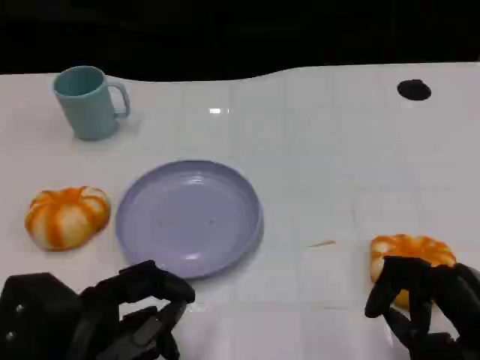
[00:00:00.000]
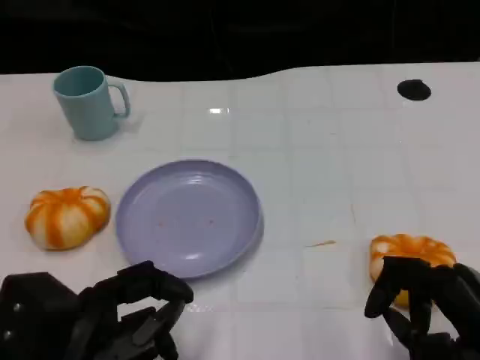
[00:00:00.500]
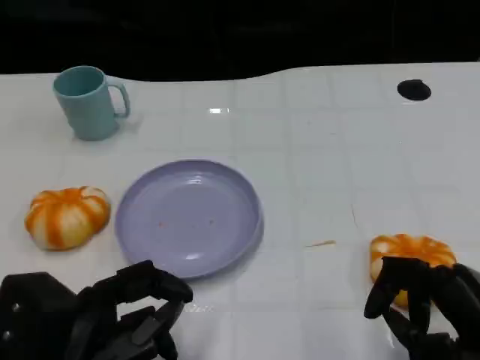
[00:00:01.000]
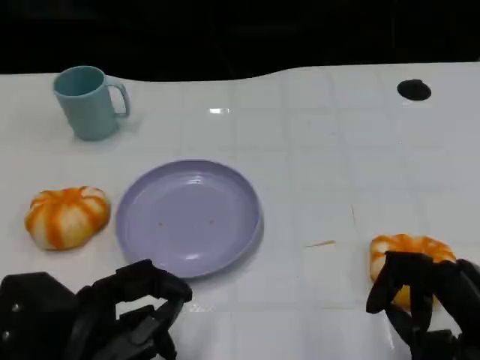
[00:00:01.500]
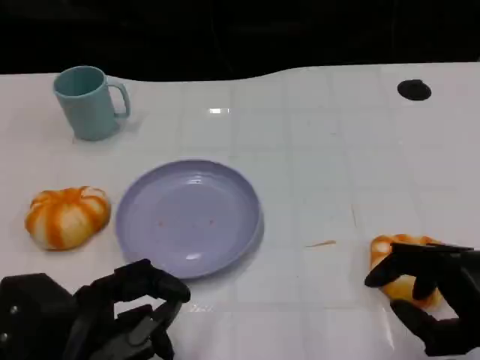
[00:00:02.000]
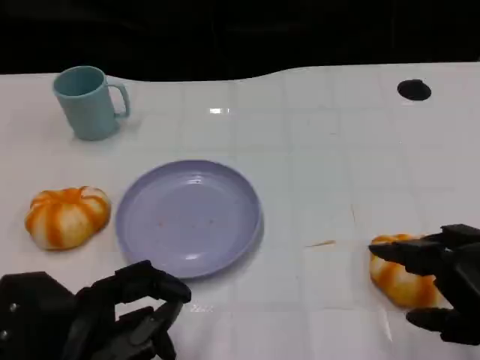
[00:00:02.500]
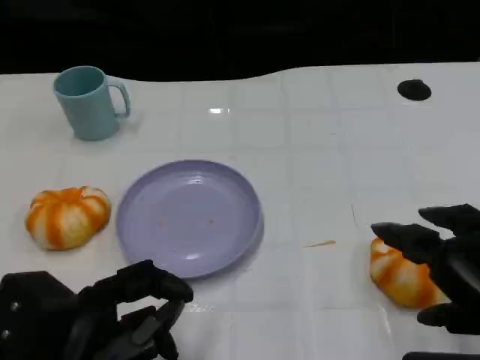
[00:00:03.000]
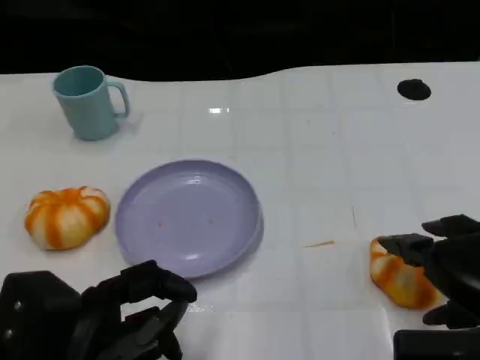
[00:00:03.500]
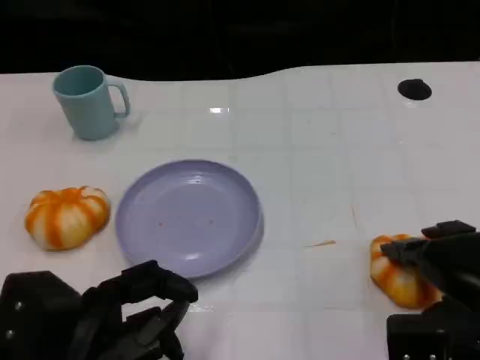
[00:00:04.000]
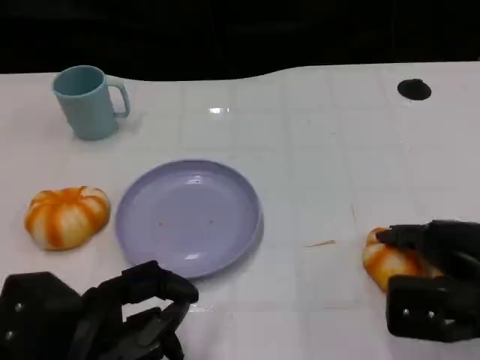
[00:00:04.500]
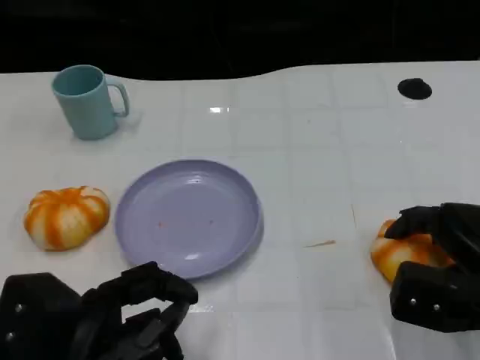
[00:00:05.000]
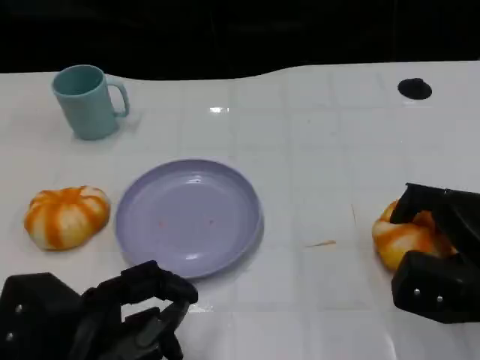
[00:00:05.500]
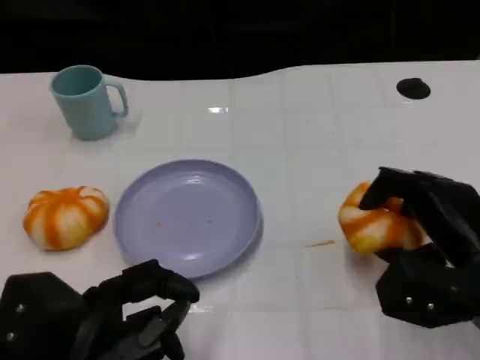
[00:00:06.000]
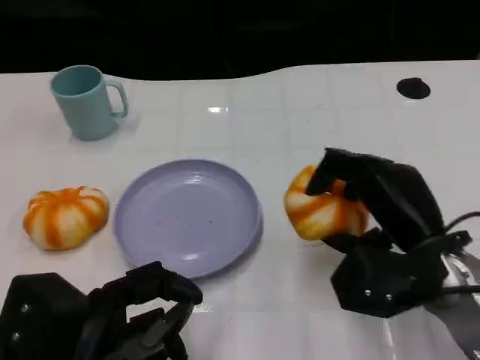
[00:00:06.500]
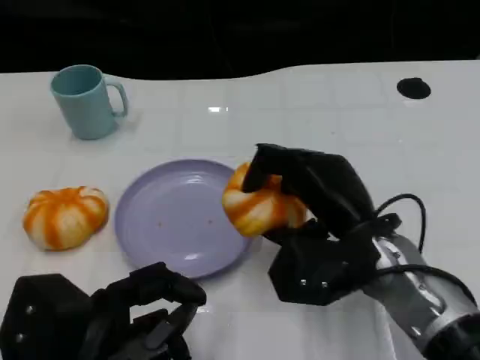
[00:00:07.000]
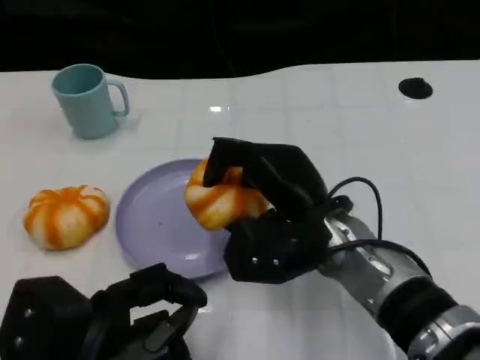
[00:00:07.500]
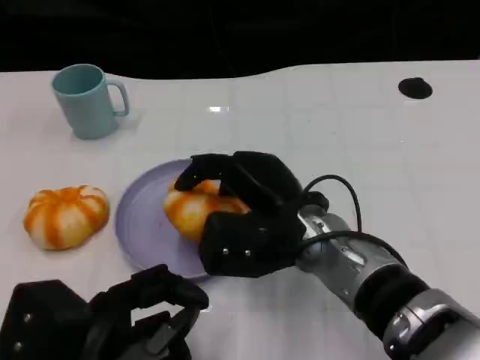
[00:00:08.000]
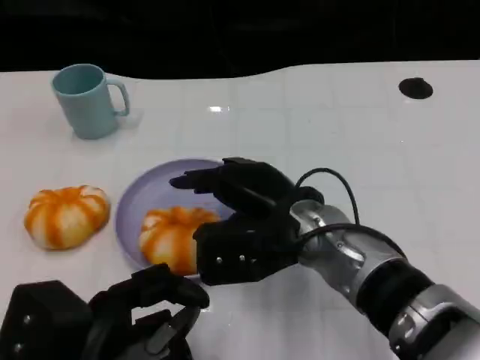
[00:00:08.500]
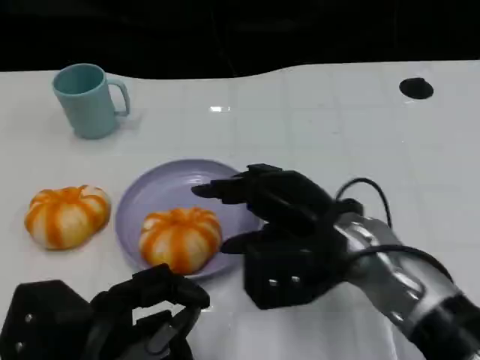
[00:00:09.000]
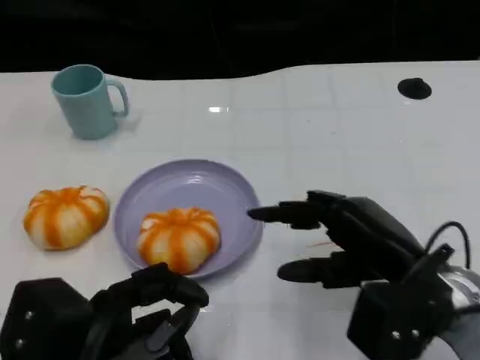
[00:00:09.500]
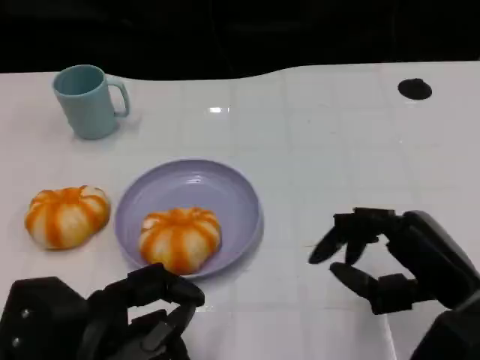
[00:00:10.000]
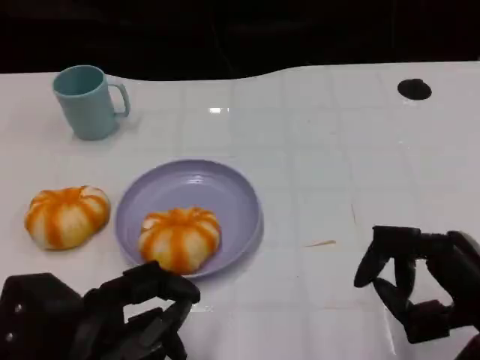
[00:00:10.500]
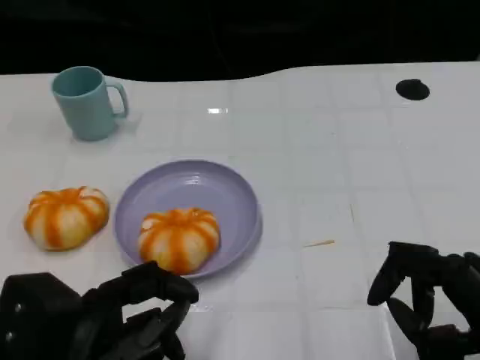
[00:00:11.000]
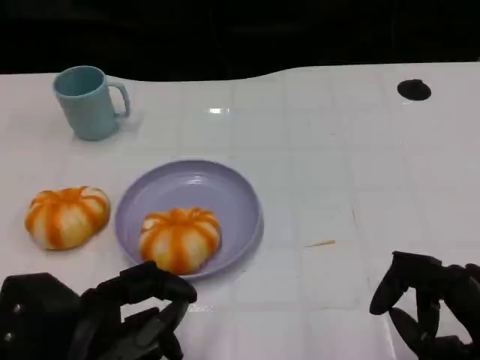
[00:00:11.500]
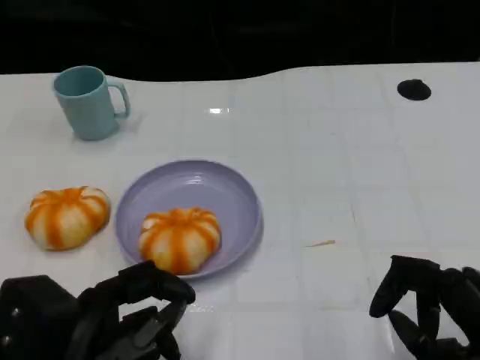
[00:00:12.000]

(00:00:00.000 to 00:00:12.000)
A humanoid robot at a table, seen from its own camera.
Task of the whole recording: Grasp the bread from the table and place it into the plate.
00:00:02.000 - 00:00:04.000: The right hand heads forward, covering roughly 5 cm.
00:00:06.000 - 00:00:08.000: The right hand shifts roughly 15 cm to the left.
00:00:08.000 - 00:00:10.000: The right hand goes approximately 20 cm to the right and backward.
00:00:10.000 - 00:00:12.000: The right hand goes roughly 5 cm backward.

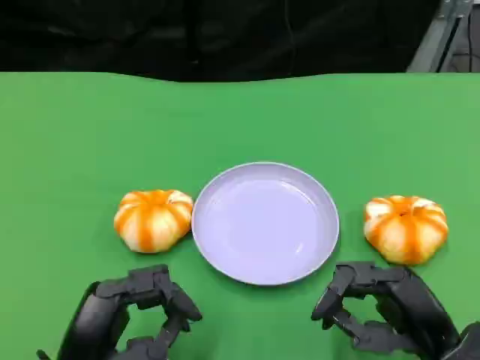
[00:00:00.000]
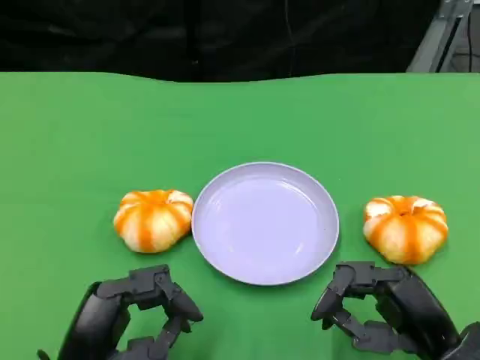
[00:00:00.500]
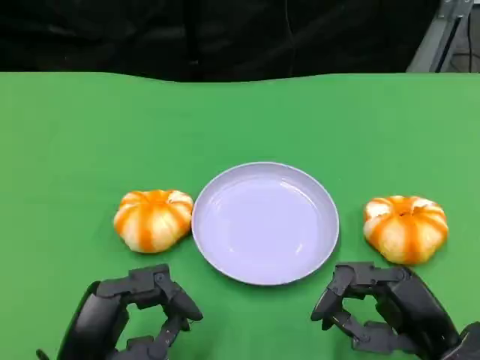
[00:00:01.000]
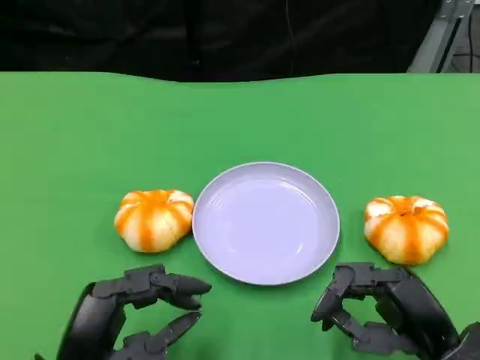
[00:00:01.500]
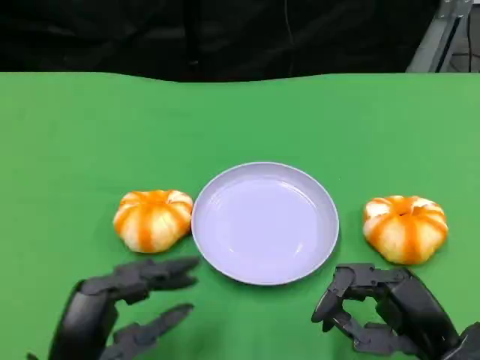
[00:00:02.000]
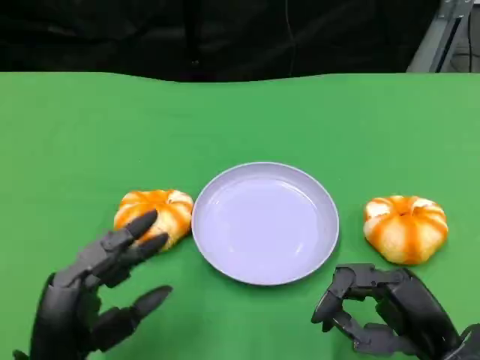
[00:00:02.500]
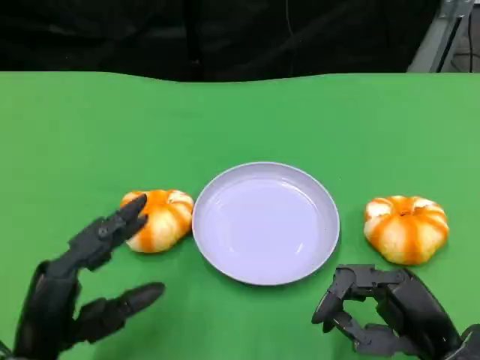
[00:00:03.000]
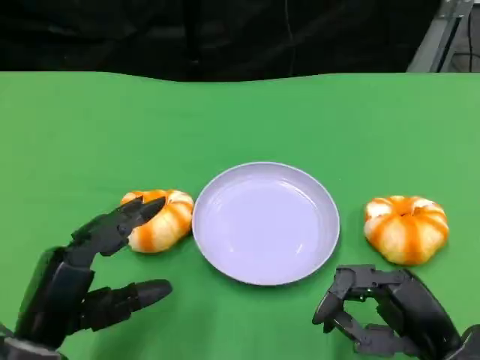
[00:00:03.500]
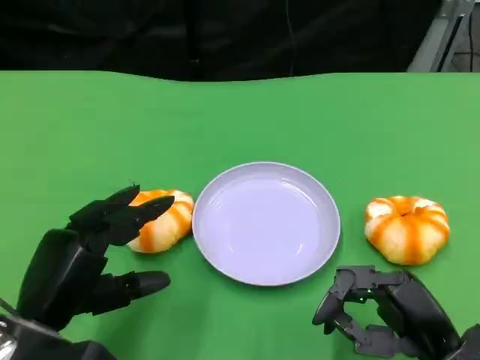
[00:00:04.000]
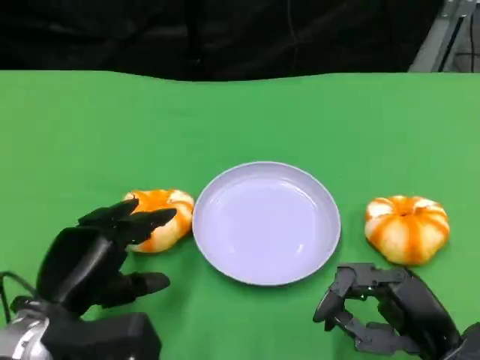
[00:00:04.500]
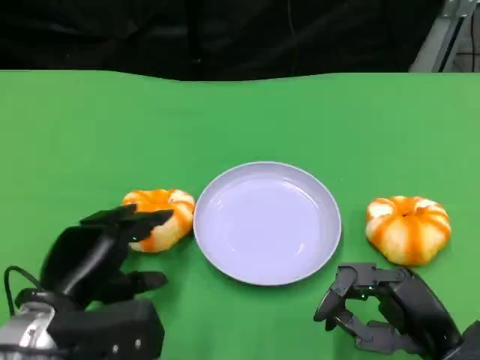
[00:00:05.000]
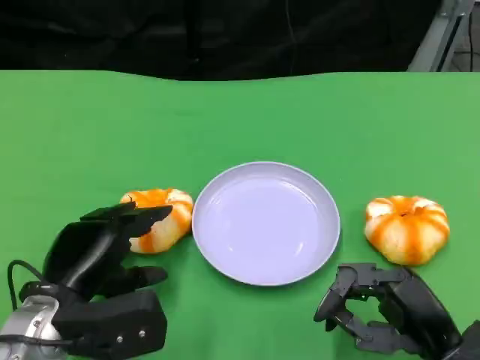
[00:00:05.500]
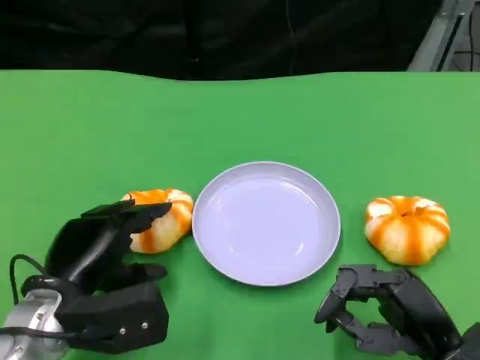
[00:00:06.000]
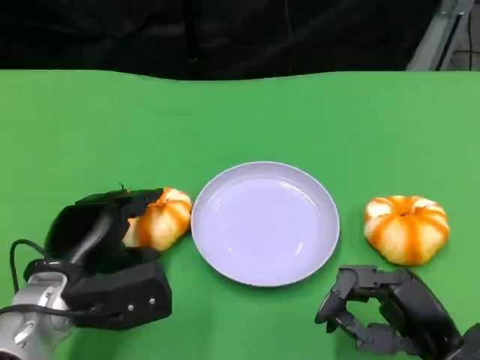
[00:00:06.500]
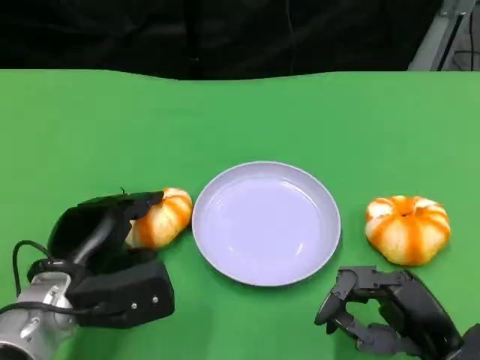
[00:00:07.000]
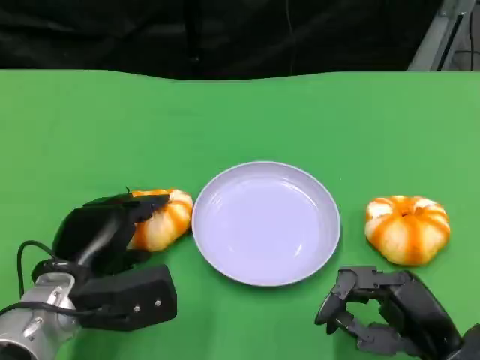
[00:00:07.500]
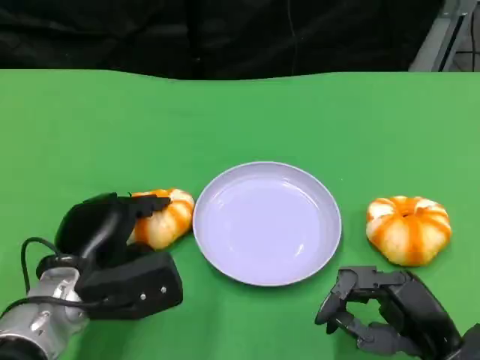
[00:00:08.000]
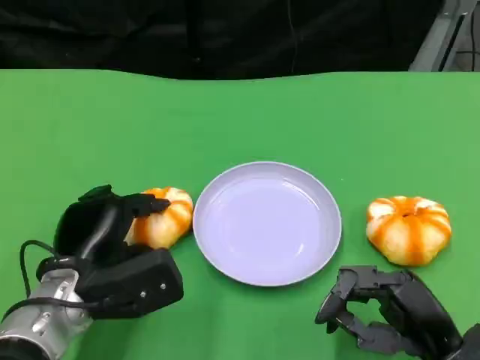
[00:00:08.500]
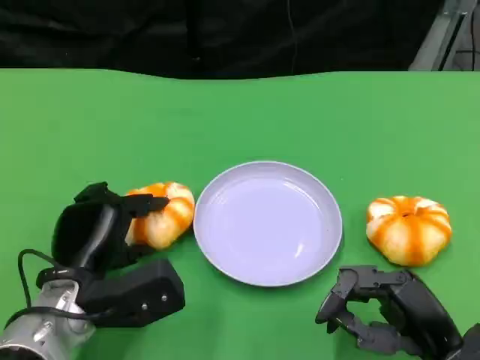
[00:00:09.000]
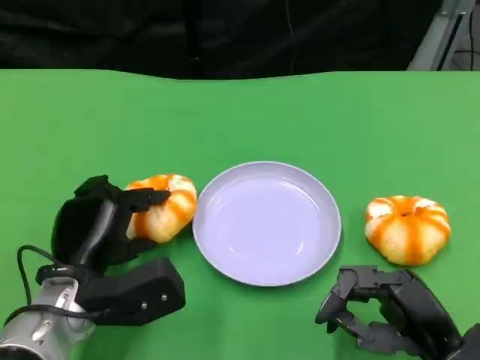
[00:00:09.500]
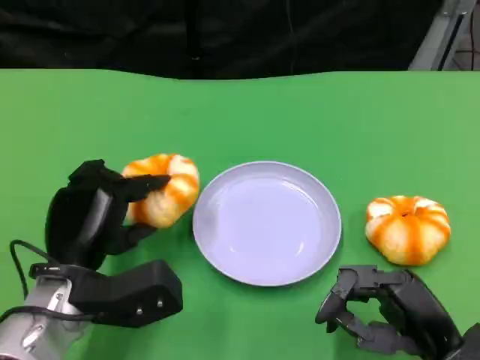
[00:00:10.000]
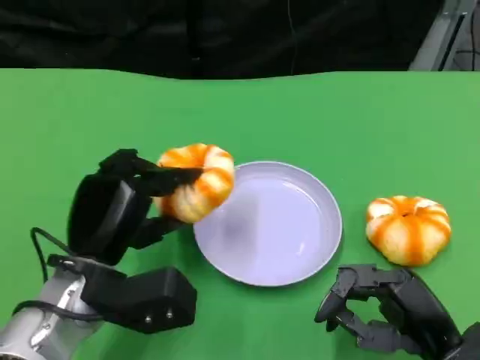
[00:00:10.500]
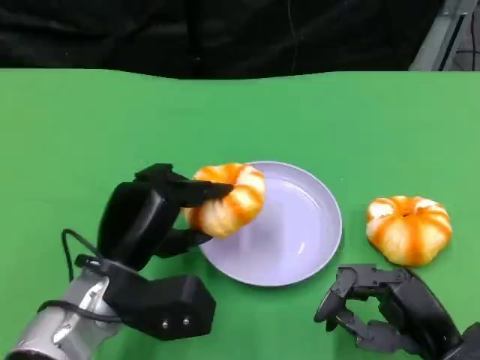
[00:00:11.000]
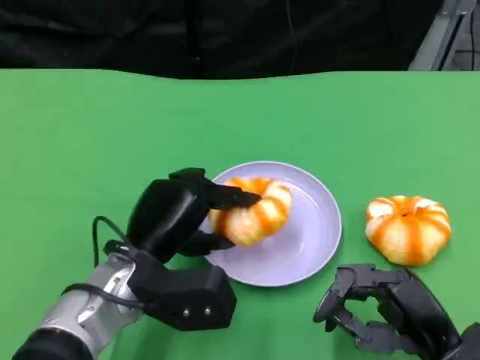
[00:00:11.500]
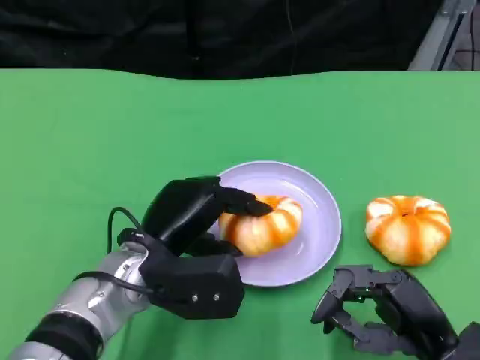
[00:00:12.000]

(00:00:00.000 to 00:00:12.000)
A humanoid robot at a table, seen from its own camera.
Task of the whole recording: Grasp the bread from the table and place it into the plate.
00:00:00.000 - 00:00:02.000: The hands stay close to where they were, moving slightly.
00:00:02.000 - 00:00:04.000: The left hand shifts by roughly 5 cm.
00:00:06.000 - 00:00:08.000: The hands move only a little.
00:00:10.000 - 00:00:12.000: The left hand goes approximately 5 cm to the right.

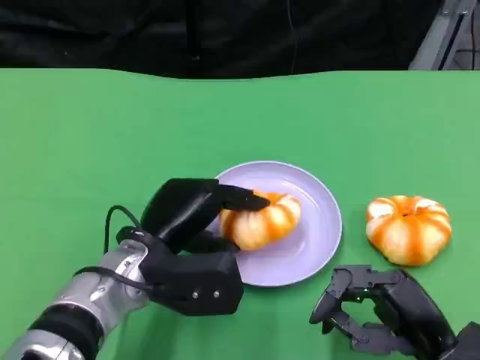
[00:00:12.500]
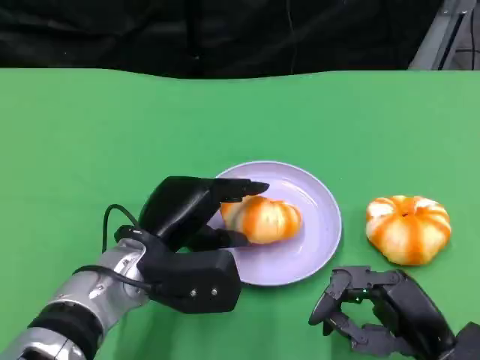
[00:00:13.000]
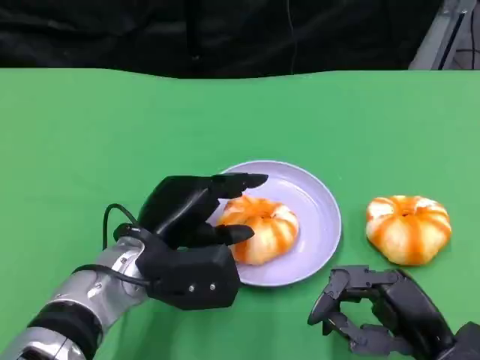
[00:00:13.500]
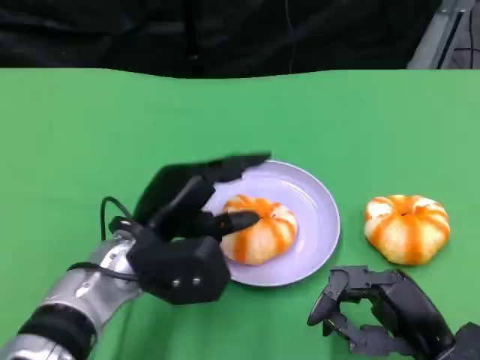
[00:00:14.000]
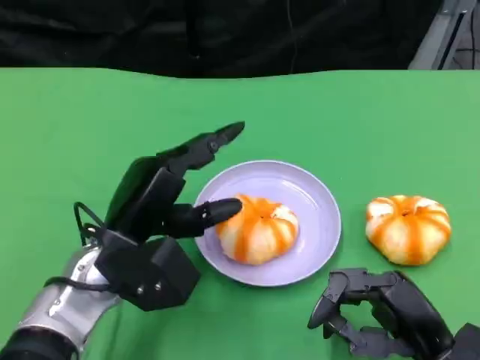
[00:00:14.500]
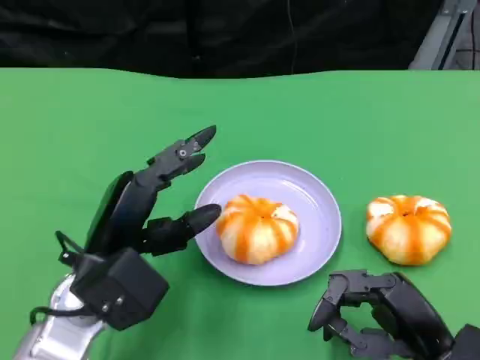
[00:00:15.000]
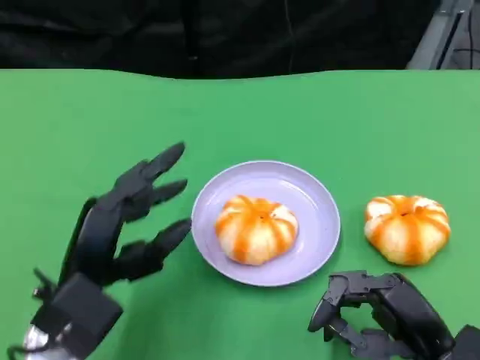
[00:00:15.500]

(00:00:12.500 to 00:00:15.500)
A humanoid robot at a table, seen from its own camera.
Task of the whole recording: Grasp the bread from the table and place it into the plate.
00:00:12.500 - 00:00:14.000: The hands move only a little.
00:00:14.000 - 00:00:15.500: The left hand heads backward and to the left, covering approximately 10 cm.
